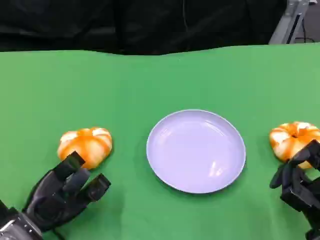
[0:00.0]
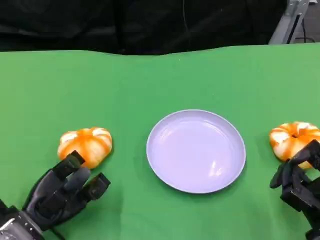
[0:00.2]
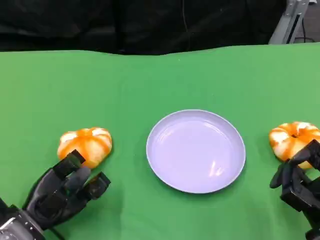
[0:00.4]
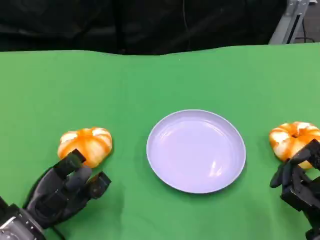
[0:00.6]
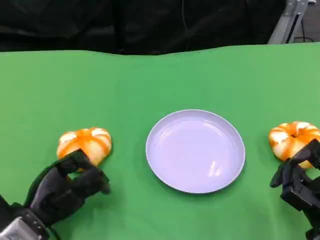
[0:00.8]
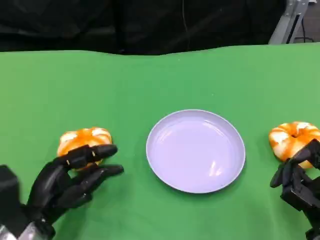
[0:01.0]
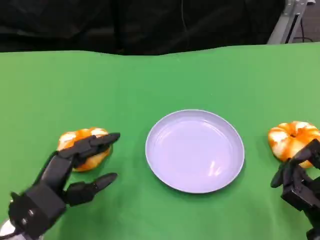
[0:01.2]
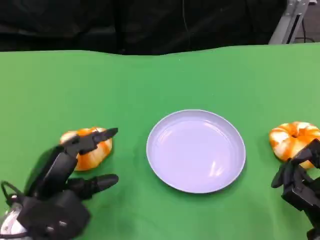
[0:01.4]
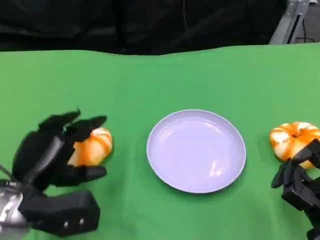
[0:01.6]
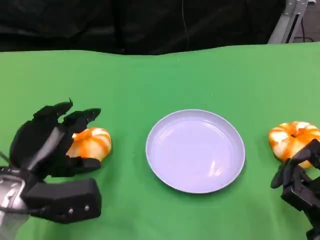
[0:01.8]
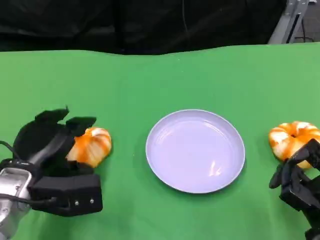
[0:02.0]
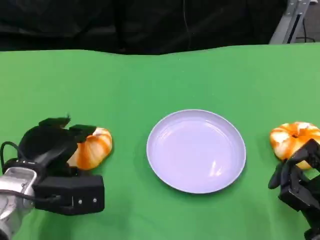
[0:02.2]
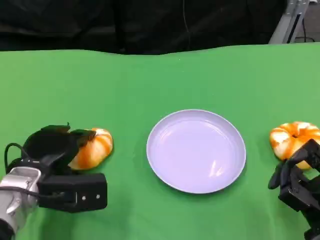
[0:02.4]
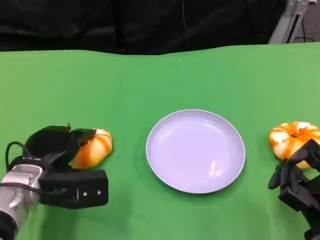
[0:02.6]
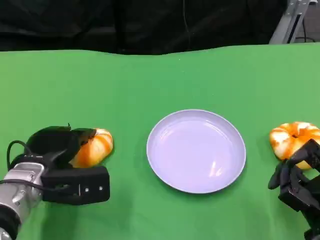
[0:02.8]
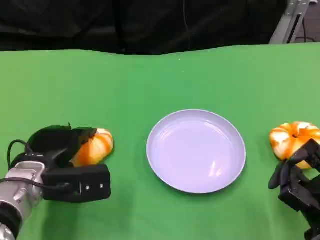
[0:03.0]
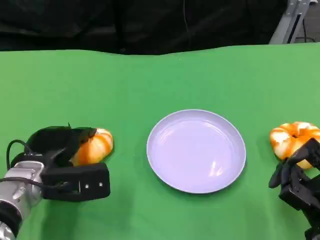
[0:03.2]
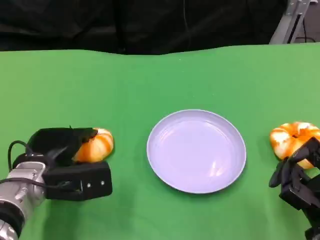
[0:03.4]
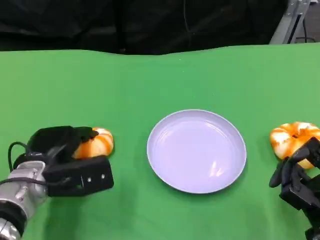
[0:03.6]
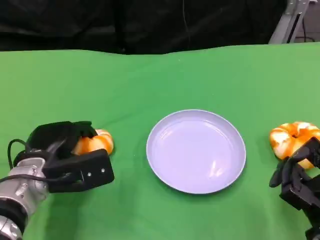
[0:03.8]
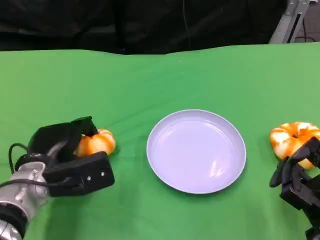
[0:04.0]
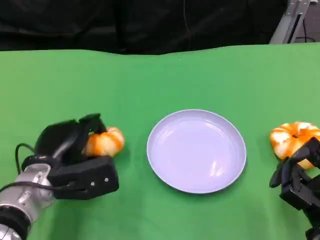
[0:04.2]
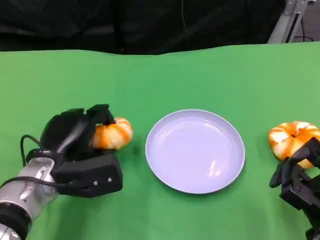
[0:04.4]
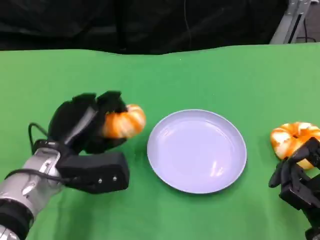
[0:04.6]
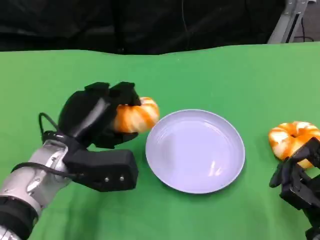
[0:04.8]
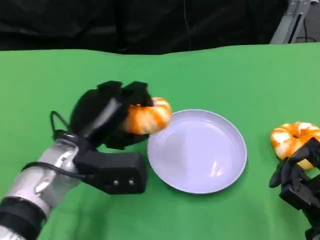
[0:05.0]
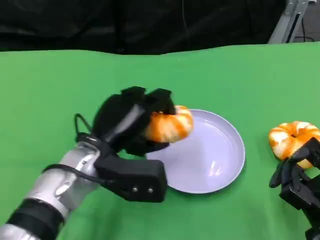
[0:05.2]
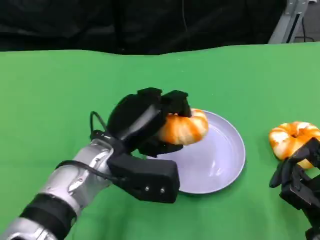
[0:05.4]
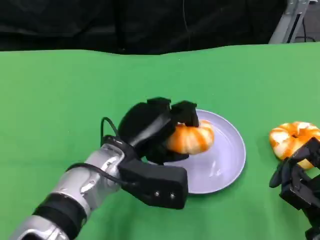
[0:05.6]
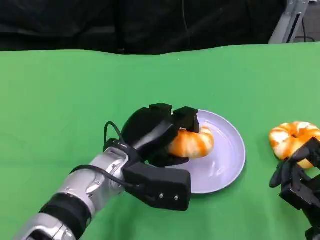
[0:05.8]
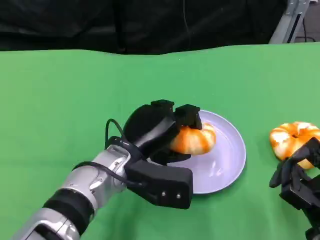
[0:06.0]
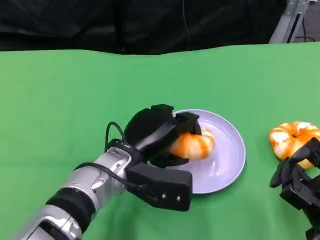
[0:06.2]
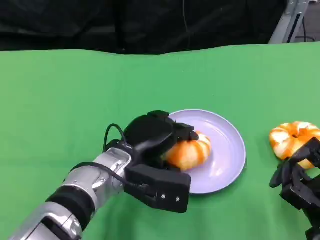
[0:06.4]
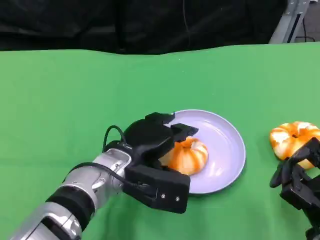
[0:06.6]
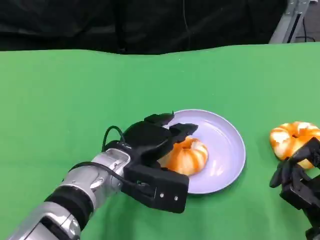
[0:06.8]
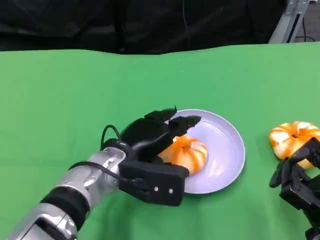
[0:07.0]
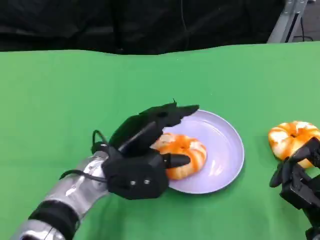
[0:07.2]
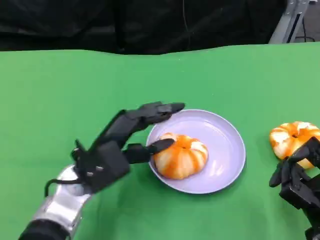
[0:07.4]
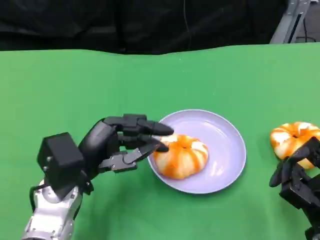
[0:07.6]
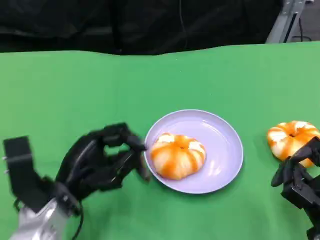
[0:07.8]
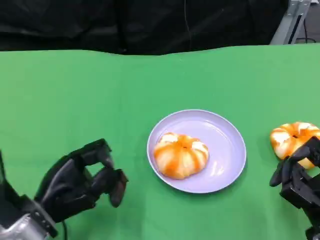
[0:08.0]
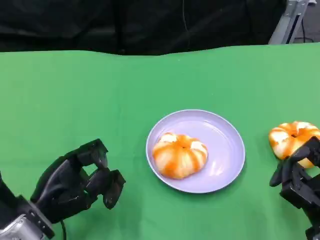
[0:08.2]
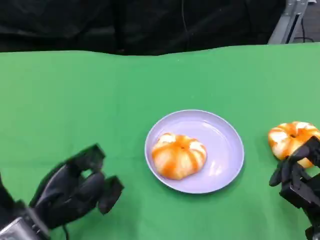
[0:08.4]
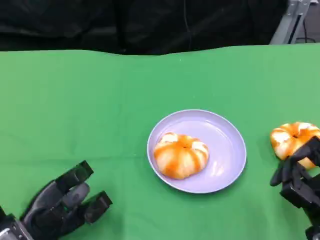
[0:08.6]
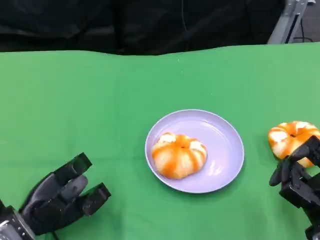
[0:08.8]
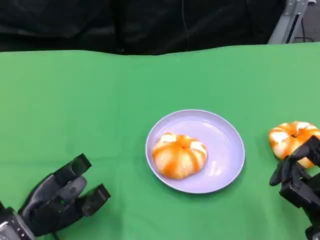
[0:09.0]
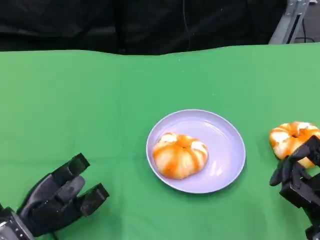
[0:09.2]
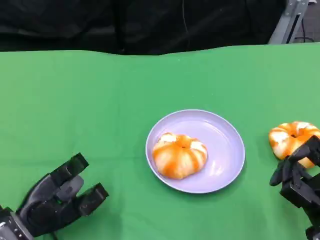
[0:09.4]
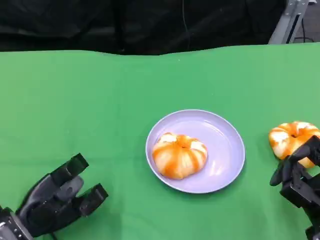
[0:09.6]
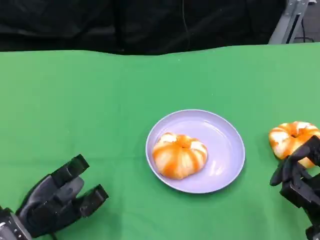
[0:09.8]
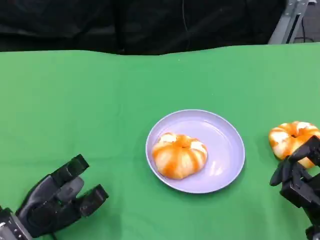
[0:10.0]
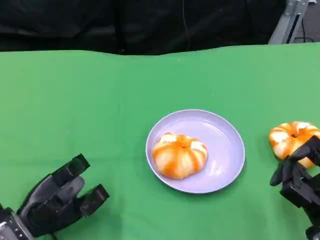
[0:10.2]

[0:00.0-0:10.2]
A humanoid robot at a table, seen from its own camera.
Task of the whole recording: Grasp the bread from the table and place it into the plate.
0:00.0 to 0:01.4: The left hand travels upward by some 5 cm.
0:01.4 to 0:03.0: The left hand heads forward, covering about 5 cm.
0:04.4 to 0:05.8: The left hand shifts some 10 cm to the right.
0:07.2 to 0:08.8: The left hand is displaced to the left, downward and backward by roughly 15 cm.
0:08.8 to 0:10.2: Both hands stay about where they are.

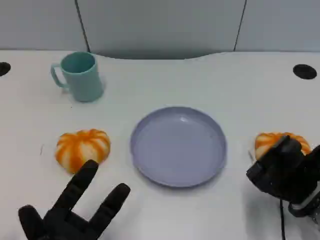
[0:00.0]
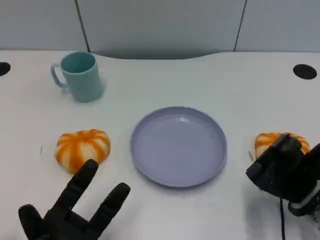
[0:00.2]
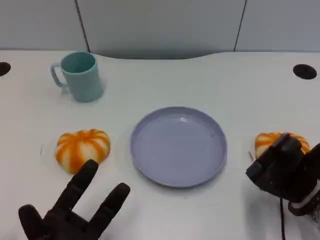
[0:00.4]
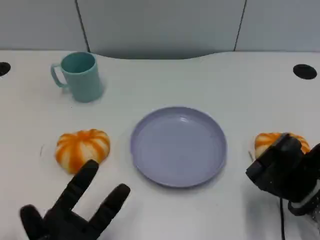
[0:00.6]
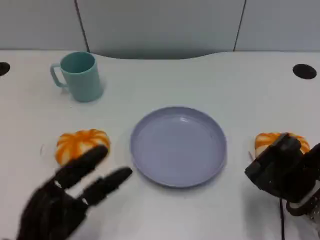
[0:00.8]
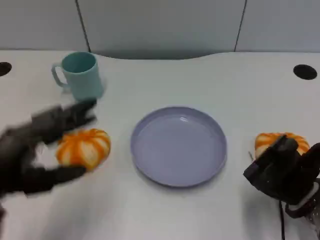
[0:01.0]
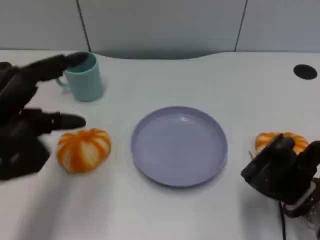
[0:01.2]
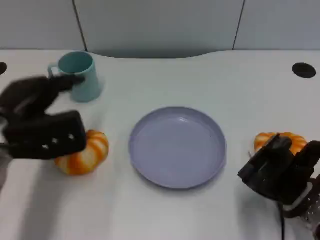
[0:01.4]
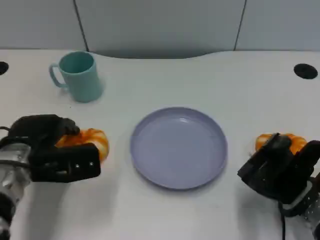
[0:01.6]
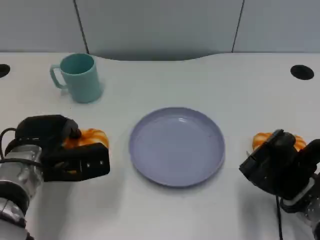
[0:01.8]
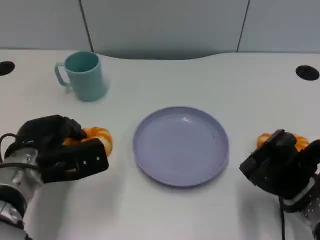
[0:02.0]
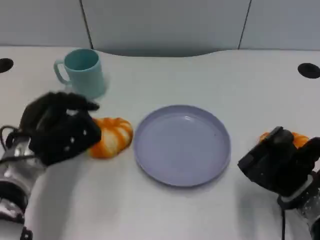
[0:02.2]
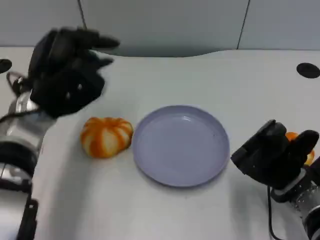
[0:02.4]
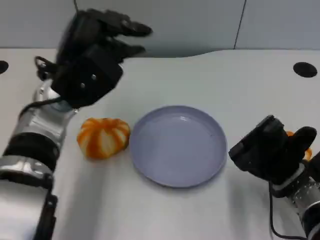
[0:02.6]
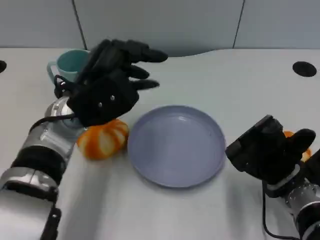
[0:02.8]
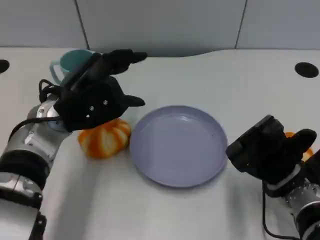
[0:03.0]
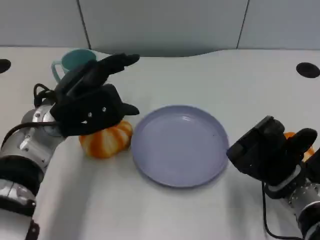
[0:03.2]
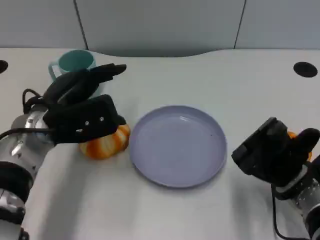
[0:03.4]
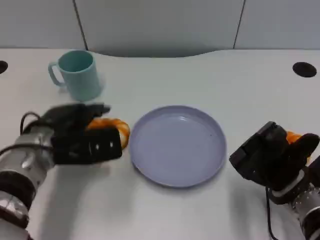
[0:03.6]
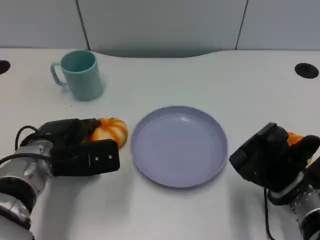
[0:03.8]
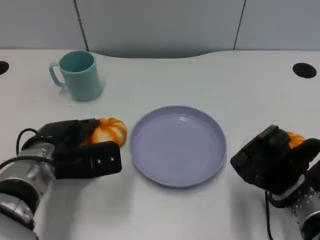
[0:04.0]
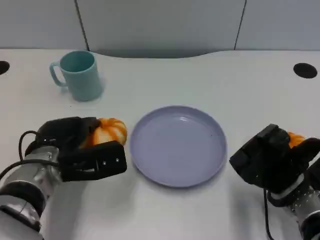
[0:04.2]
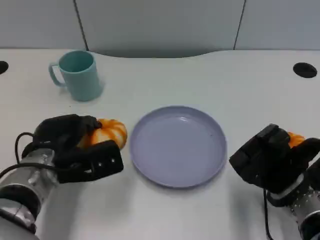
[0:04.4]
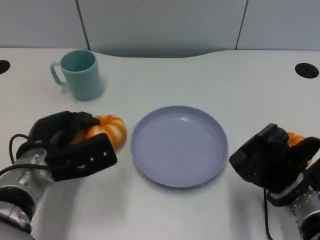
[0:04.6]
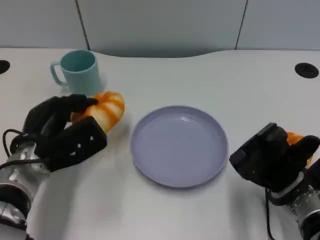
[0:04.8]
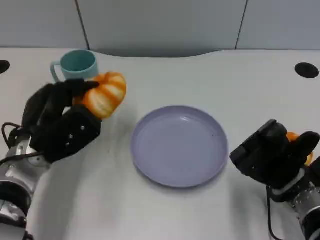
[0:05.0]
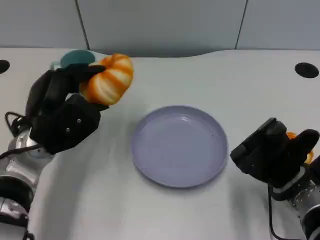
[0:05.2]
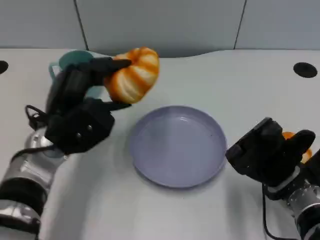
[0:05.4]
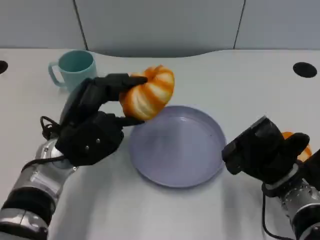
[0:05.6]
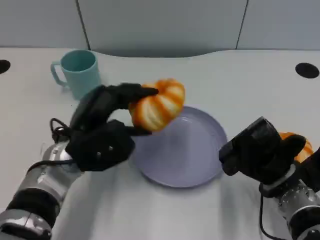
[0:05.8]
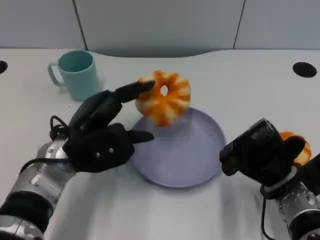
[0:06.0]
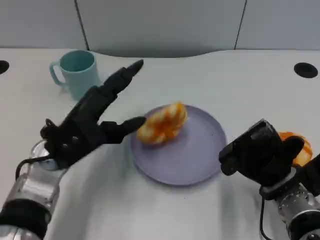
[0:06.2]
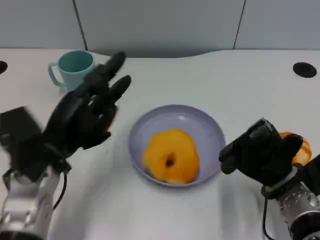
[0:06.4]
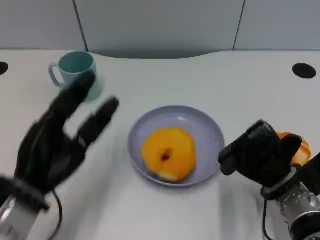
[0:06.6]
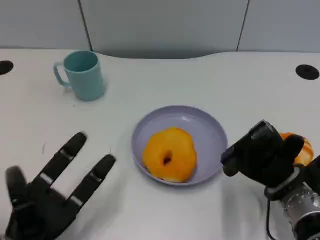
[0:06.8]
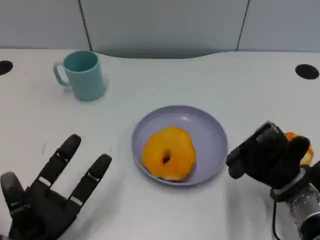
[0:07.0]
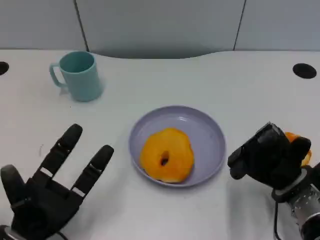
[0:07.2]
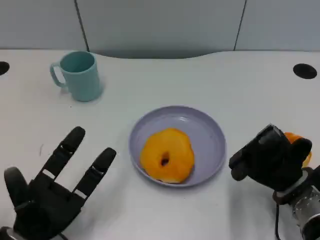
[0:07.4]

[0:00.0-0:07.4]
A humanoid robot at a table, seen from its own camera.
Task of the whole recording: Grasp the bread from the table and place it into the plate.
0:00.0 to 0:01.4: The left hand shifts some 20 cm upward and forward.
0:01.4 to 0:03.0: The left hand shifts about 5 cm to the right, and moves roughly 5 cm downward and comes back.
0:03.0 to 0:04.4: The left hand is displaced downward by roughly 10 cm.
0:04.4 to 0:06.0: The left hand shifts by about 5 cm.
0:06.0 to 0:07.4: The left hand is displaced backward, downward and to the left by roughly 15 cm.

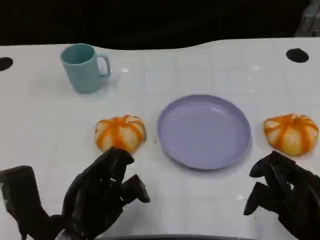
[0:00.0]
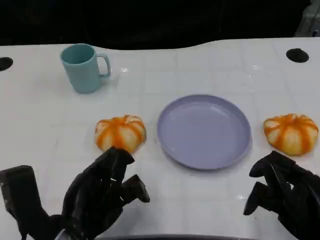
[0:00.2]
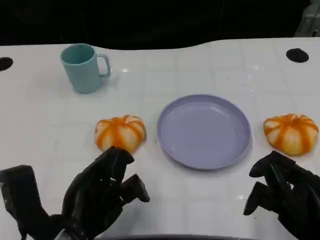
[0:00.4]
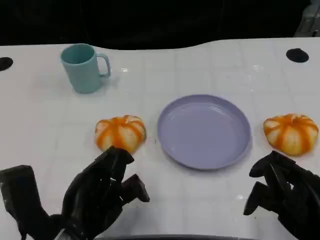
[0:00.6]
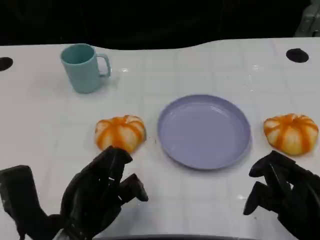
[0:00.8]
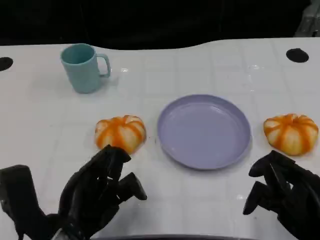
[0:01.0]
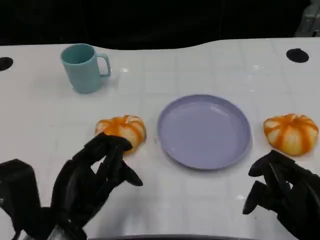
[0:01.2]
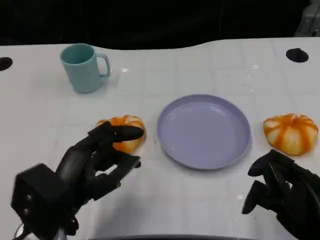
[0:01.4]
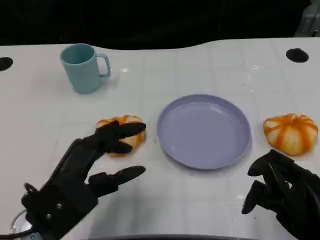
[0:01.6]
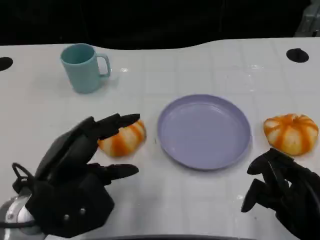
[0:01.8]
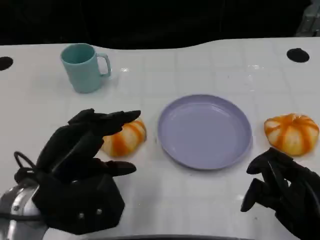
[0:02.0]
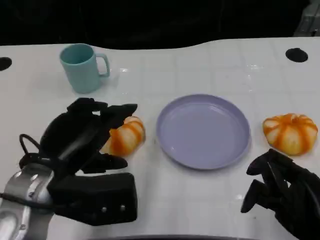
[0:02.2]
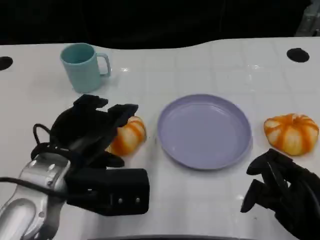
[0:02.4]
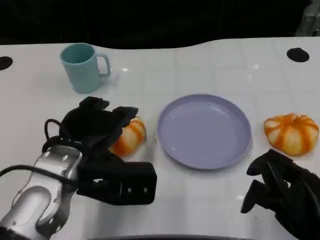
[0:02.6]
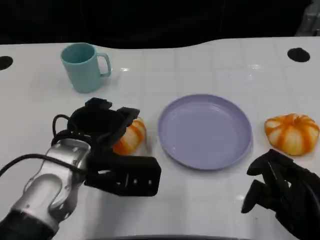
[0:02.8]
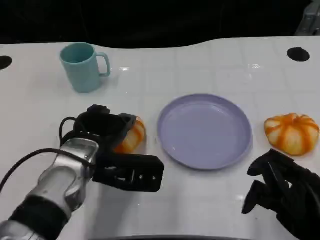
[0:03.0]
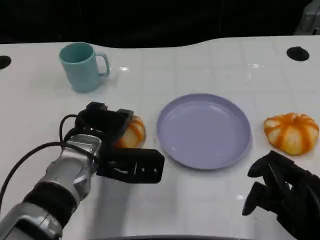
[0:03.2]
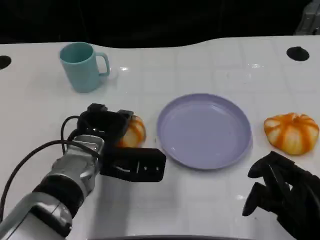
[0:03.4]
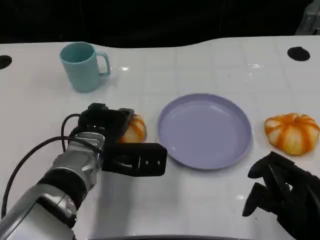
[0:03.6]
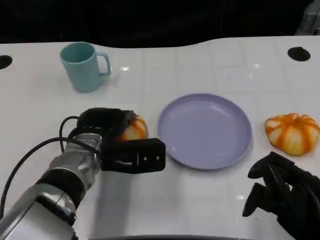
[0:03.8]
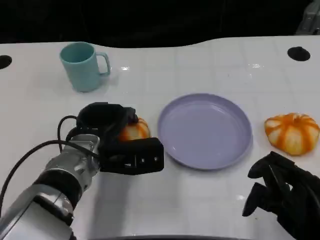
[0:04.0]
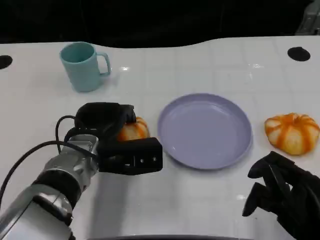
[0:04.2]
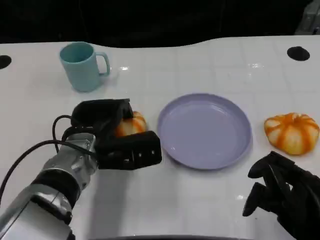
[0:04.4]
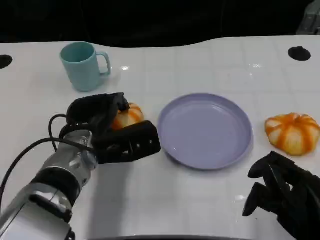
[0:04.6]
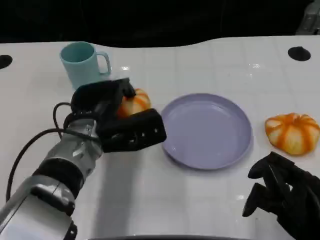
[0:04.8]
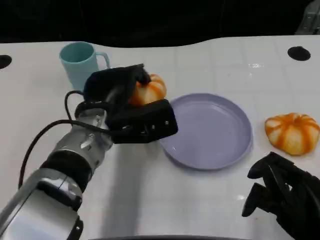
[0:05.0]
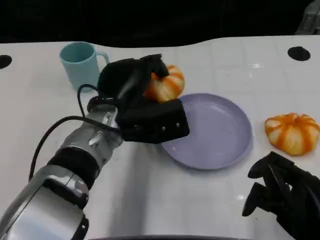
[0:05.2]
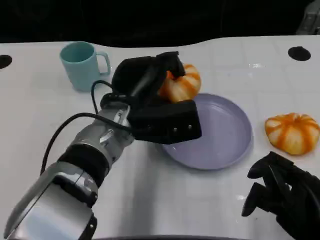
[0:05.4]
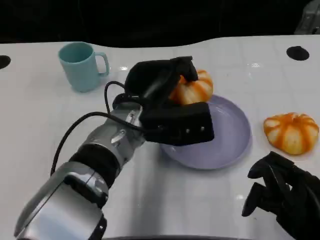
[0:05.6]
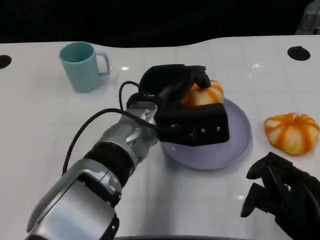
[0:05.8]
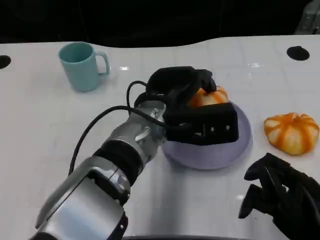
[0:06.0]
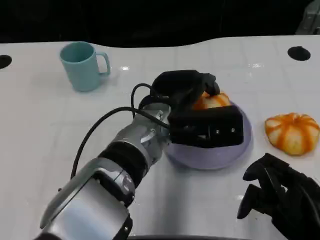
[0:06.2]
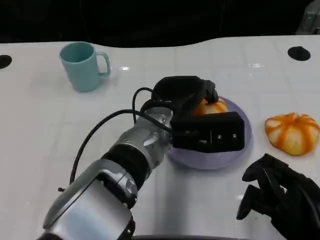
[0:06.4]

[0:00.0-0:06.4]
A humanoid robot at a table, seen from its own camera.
Task of the whole recording: Grasp the bread from the table and place it into the plate.
0:01.6 to 0:03.2: The left hand shifts about 15 cm forward and to the right.
0:04.8 to 0:06.4: The left hand is displaced to the right by roughly 10 cm.
